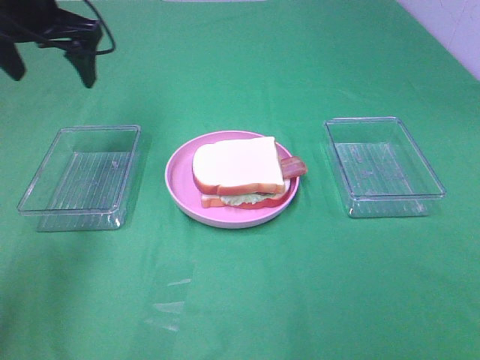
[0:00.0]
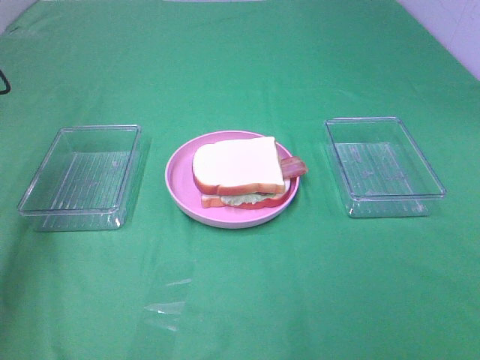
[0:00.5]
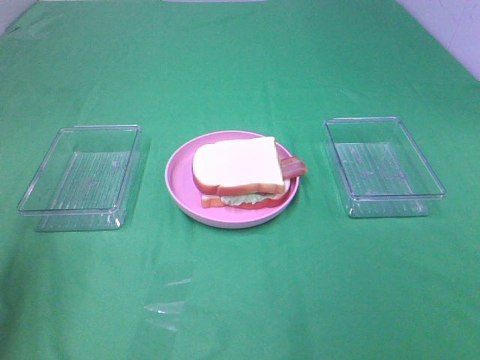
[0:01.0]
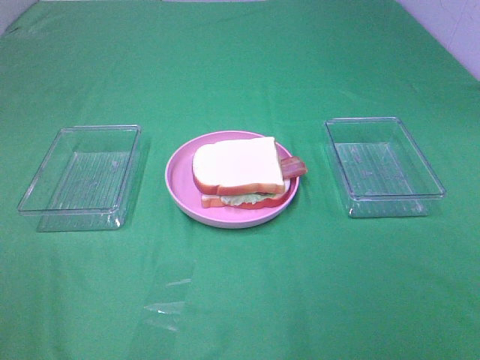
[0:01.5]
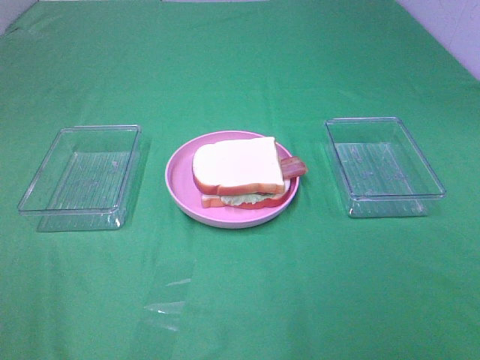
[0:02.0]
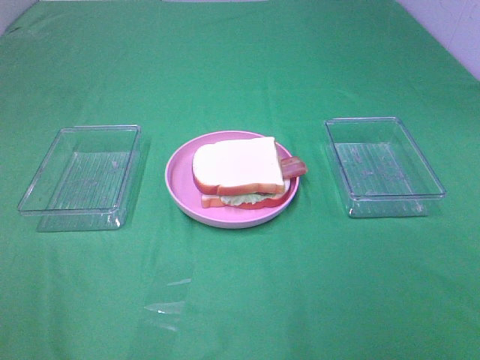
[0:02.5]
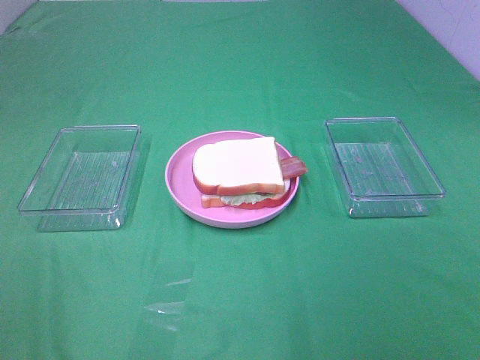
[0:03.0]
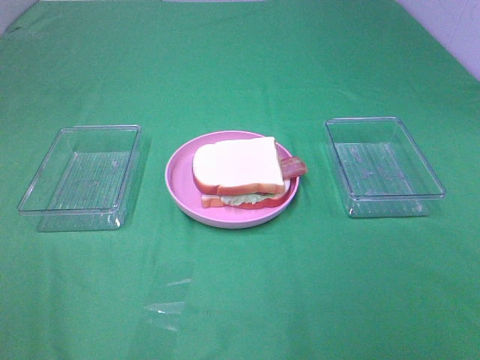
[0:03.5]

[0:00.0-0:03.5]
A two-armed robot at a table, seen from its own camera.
Task of the whole recording: Make sandwiches.
0:00.0 to 0:02.0: The left gripper goes some 40 cm backward.

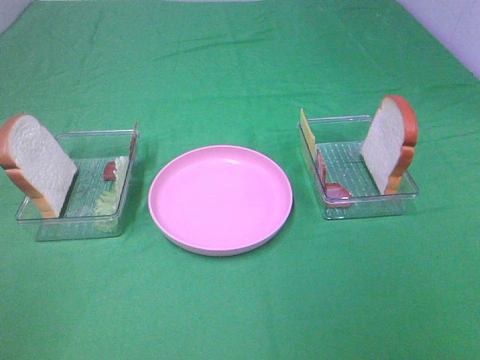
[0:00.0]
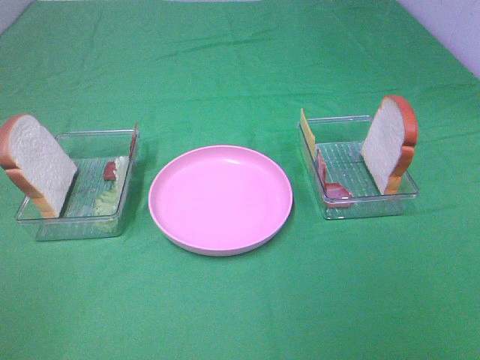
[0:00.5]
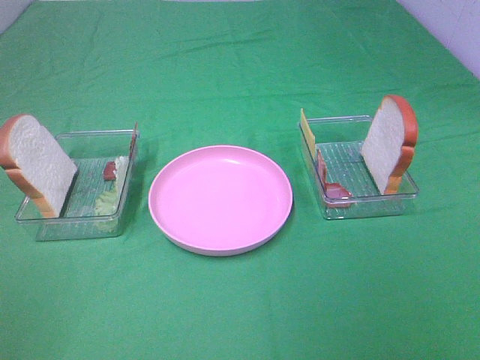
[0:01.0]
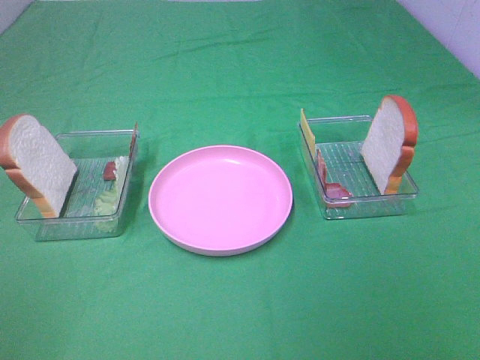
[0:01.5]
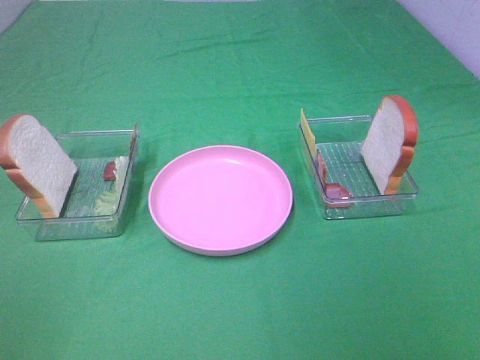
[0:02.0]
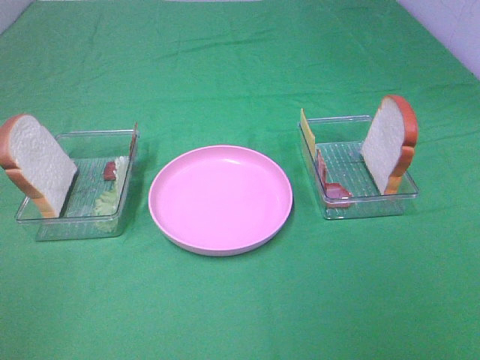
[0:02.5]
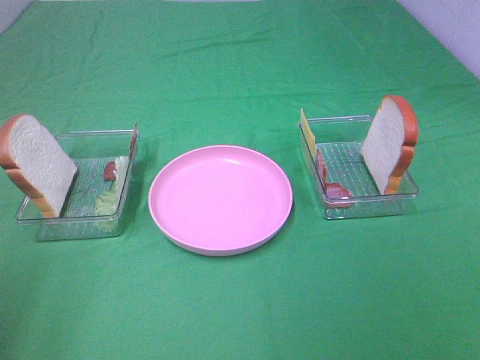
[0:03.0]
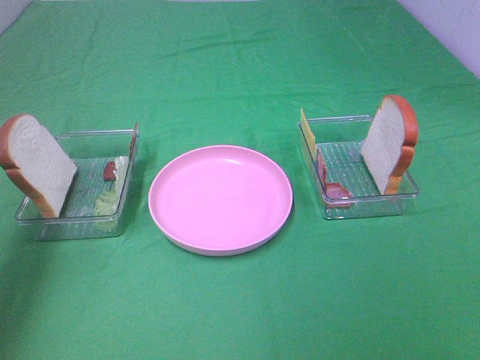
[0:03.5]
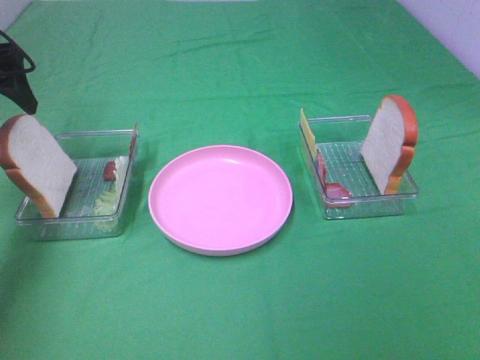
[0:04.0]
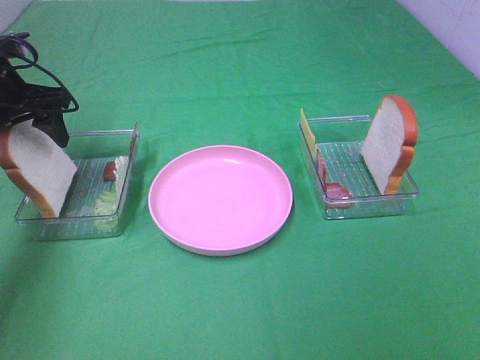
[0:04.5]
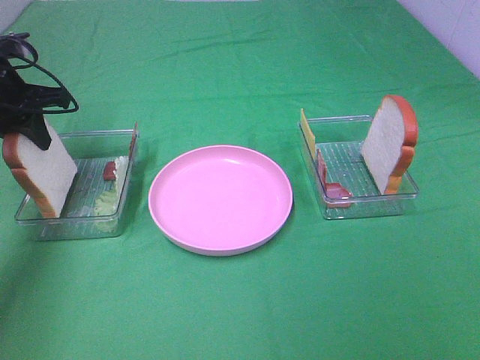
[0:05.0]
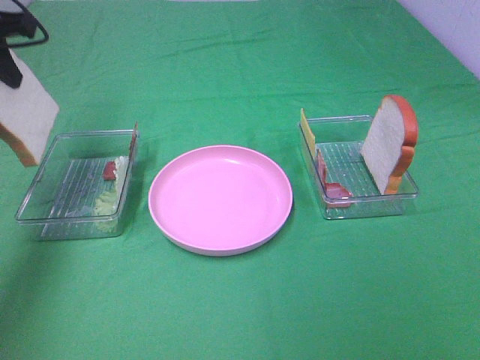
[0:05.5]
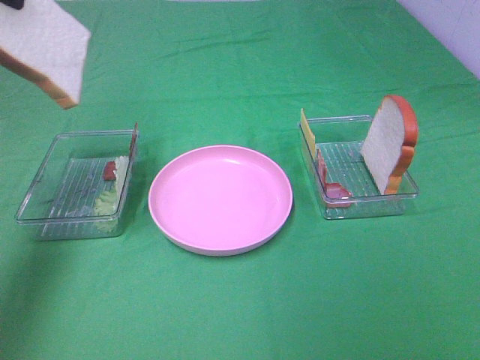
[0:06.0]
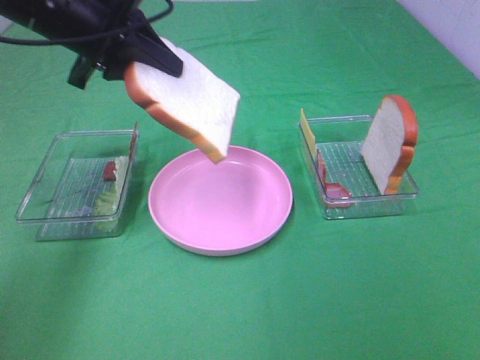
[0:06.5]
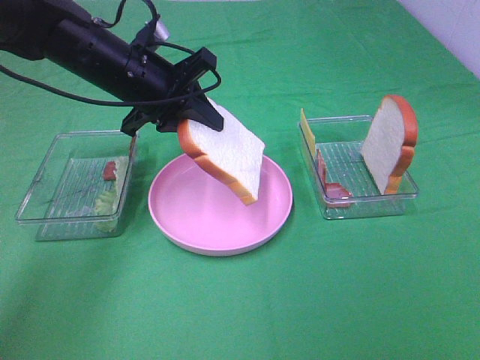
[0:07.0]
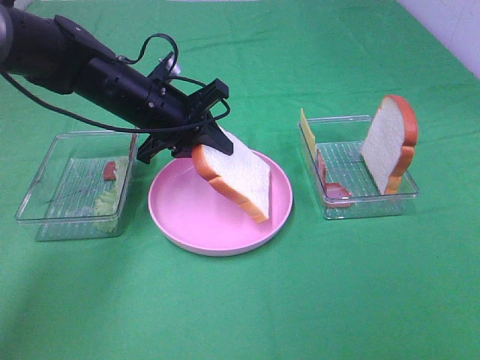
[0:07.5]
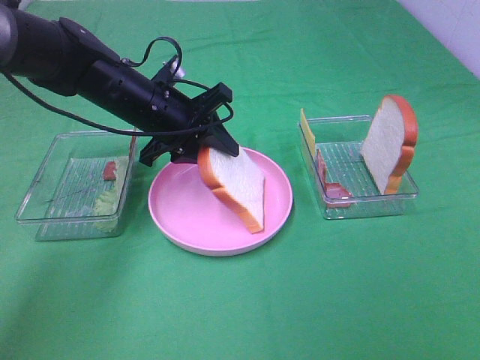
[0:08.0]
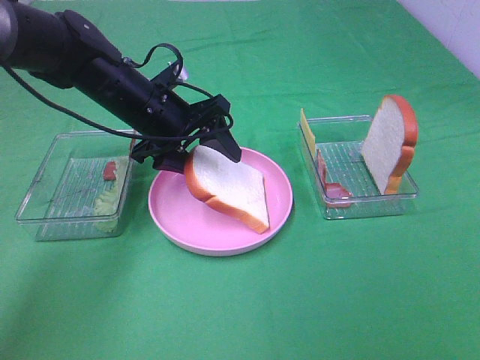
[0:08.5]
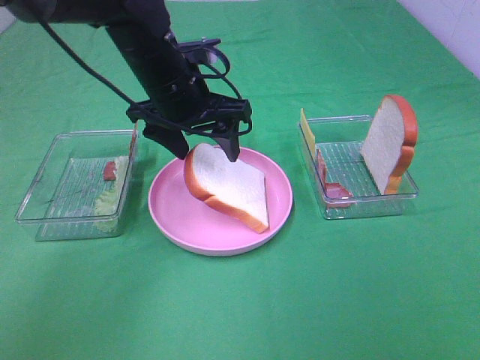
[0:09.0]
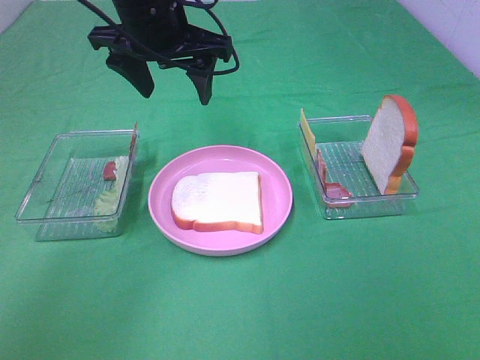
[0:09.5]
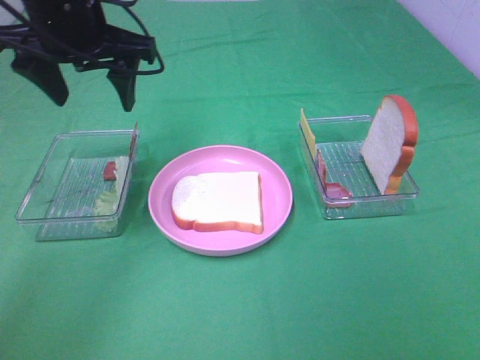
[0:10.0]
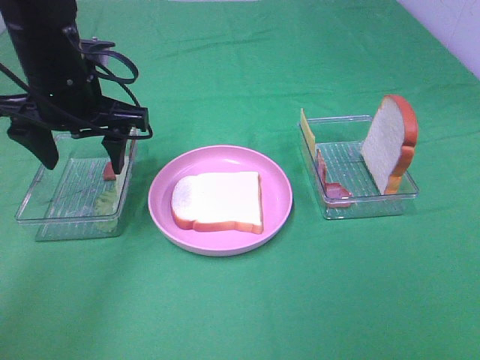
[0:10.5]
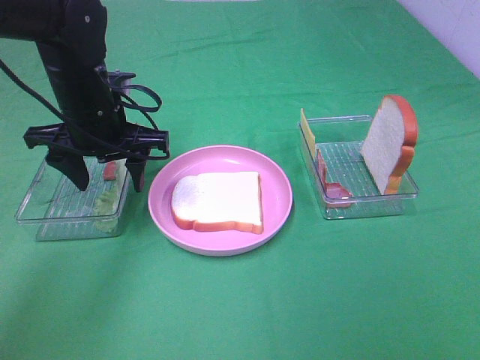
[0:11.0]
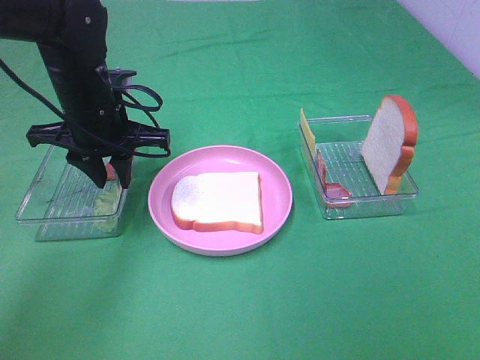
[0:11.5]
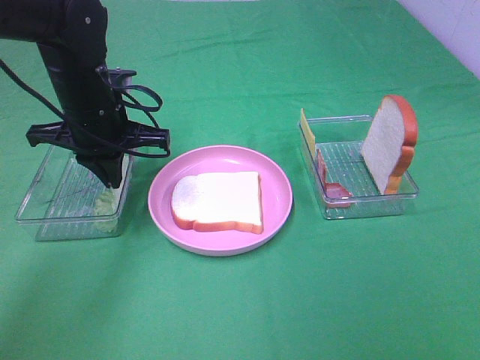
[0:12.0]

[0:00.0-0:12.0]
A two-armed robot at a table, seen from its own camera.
Task of the whole recording: Make sandwiches.
Step, 0:00.0 to 0:05.0: Left hand:grab the bread slice.
Step, 0:05.5 to 0:09.0: Left hand:place the bread slice on the plate.
0:00.0 to 0:02.0: The two grippers keep their place.
0:02.0 to 0:04.0: The left gripper moves forward, roughly 40 cm.
0:04.0 to 0:06.0: The left gripper moves upward and backward, some 15 cm, and closes up.
0:06.0 to 0:08.0: The left gripper heads downward and to the right, covering some 25 cm.
0:08.0 to 0:10.0: The left gripper moves upward, about 15 cm, and opens up.
0:10.0 to 0:12.0: The left gripper moves downward, some 10 cm, and closes up.

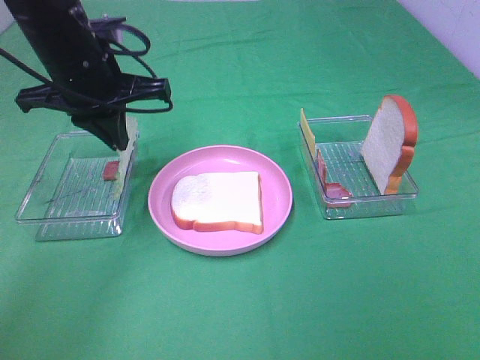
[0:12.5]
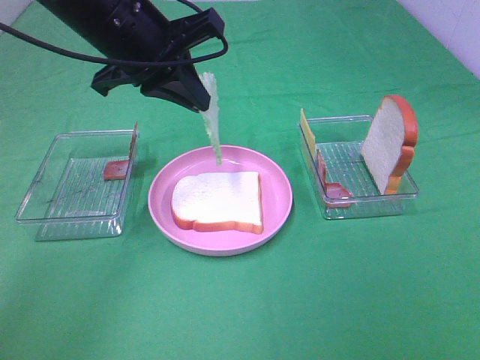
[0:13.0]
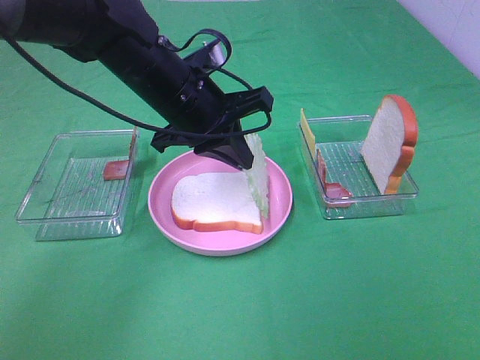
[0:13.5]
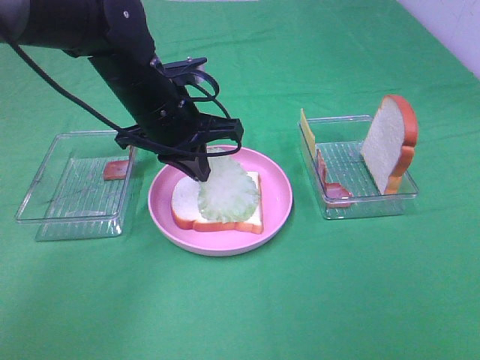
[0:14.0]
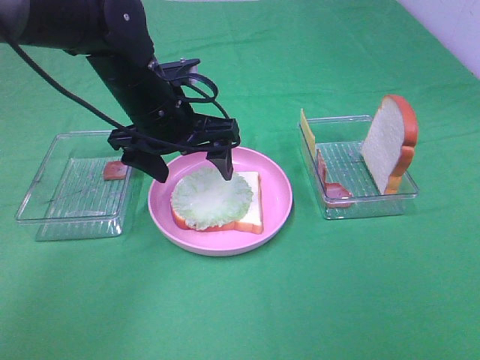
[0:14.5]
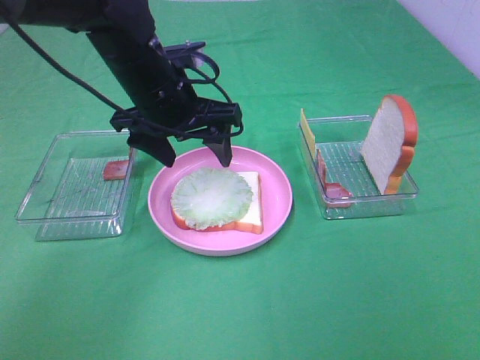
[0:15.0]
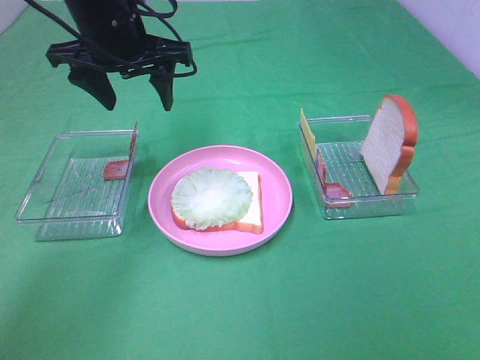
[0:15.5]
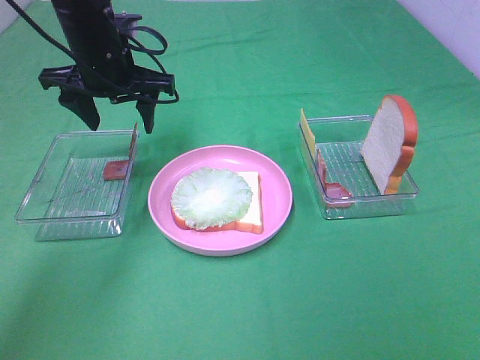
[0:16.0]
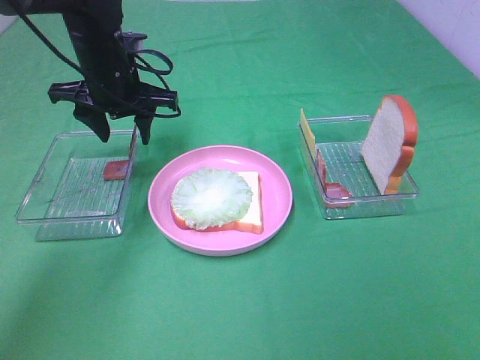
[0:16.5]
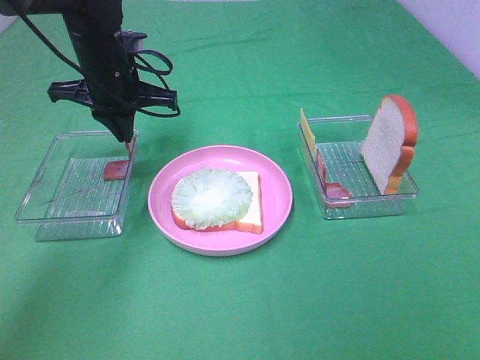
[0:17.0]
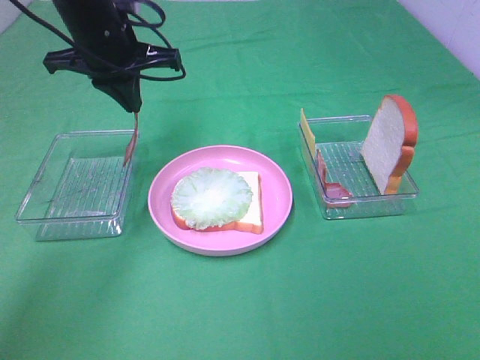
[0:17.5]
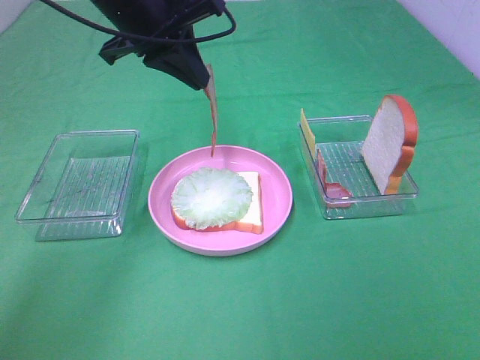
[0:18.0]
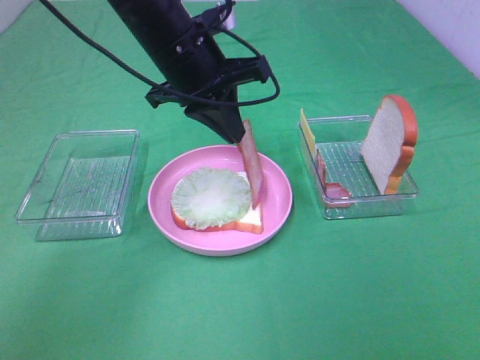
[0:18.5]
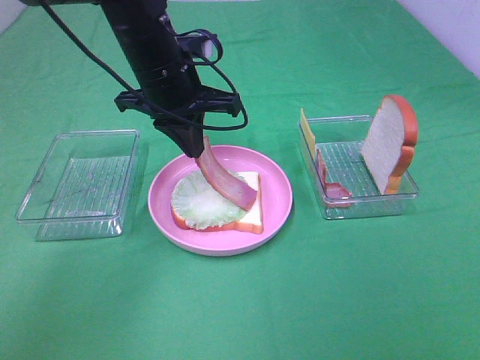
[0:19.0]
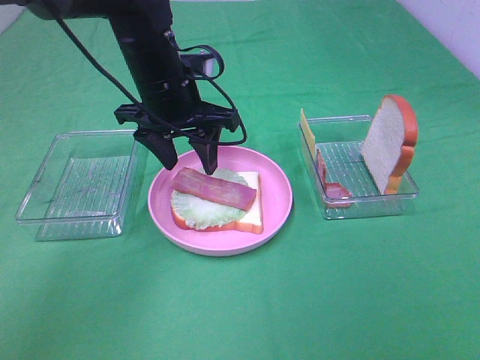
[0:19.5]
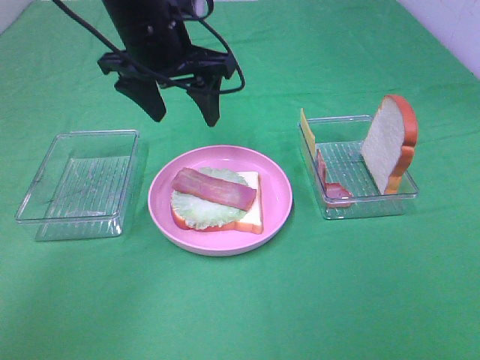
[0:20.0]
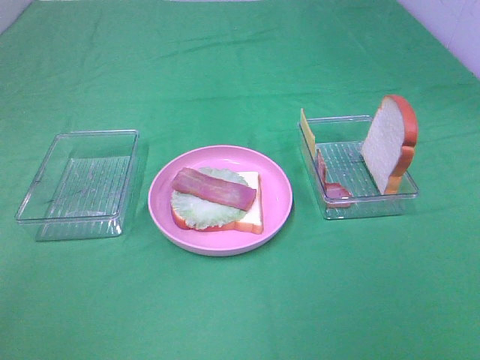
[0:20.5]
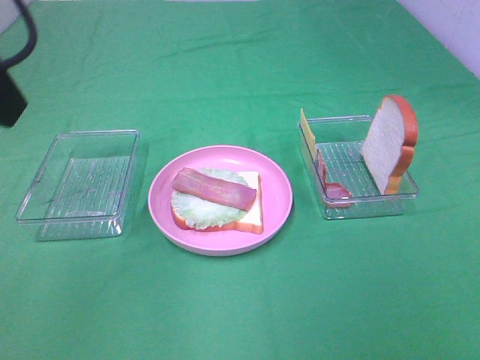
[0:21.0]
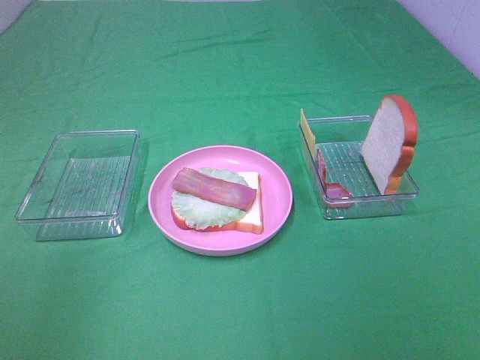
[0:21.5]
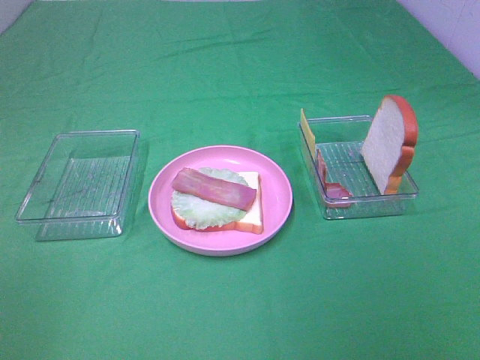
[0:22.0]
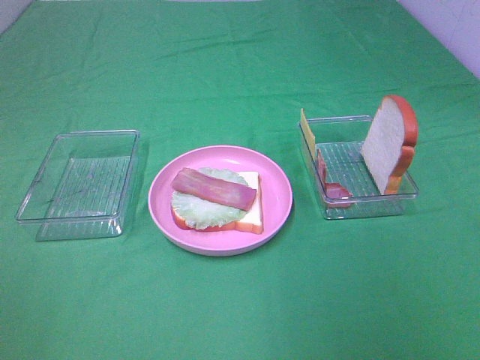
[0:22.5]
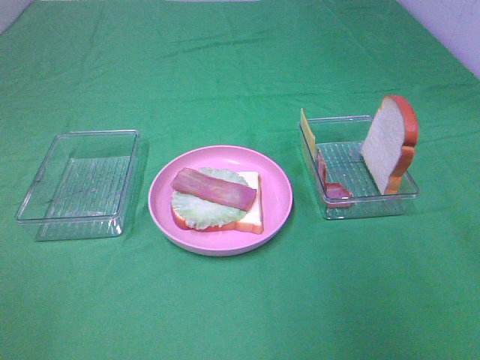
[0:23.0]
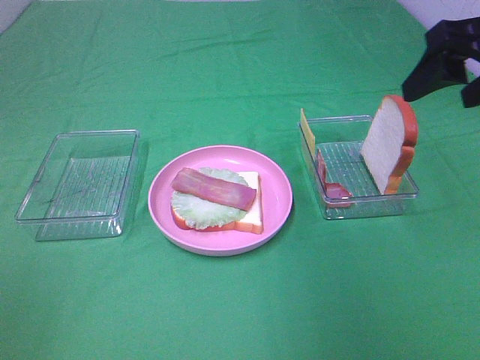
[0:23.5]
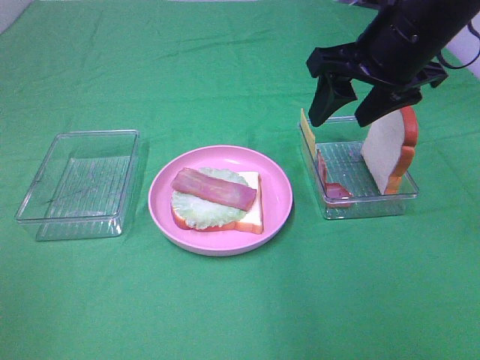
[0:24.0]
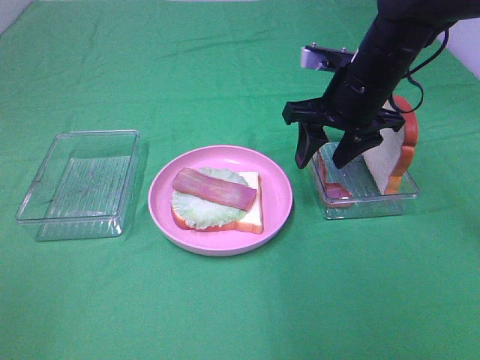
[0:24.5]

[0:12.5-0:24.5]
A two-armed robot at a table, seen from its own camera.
Task of the whole recording: Make sandwiches.
Step, 0:12.5 to 0:14.5: Left hand:place the lettuce slice on the bread slice.
Step, 0:15.0 to 0:17.0: Left hand:grab the bacon.
Step, 0:17.5 to 0:19.5: Left hand:place bacon on lettuce slice.
0:12.5 to 0:14.5: The left gripper goes approximately 10 cm downward and to the right, and opens.
0:14.5 to 0:16.5: The left gripper shifts some 10 cm forward and to the left, reaches approximately 10 cm upward, then returns, and closes its fingers.
0:16.5 to 0:18.5: The left gripper shifts some 10 cm to the right and backward, and closes up.
0:18.5 to 0:20.5: The left gripper is displaced upward, to the left and backward by approximately 20 cm, and opens its fingers.
0:22.5 to 0:24.5: The right gripper is displaced forward, downward and to the left by about 40 cm.
